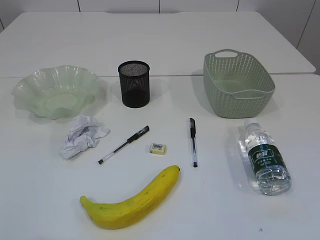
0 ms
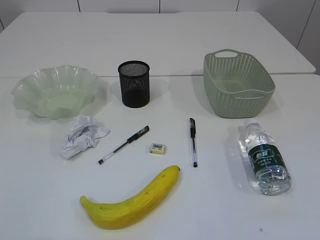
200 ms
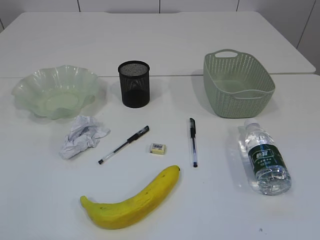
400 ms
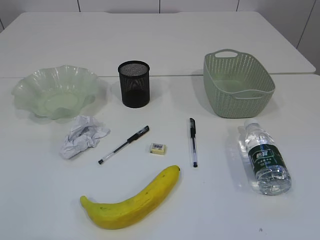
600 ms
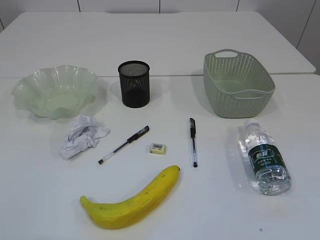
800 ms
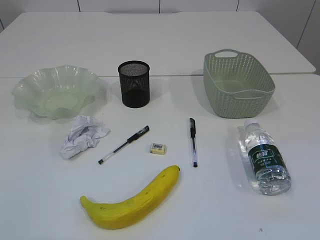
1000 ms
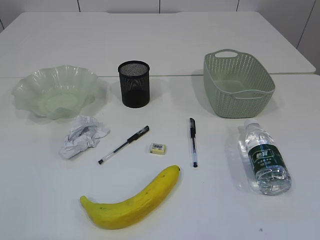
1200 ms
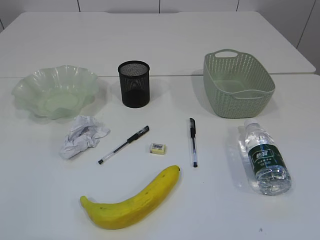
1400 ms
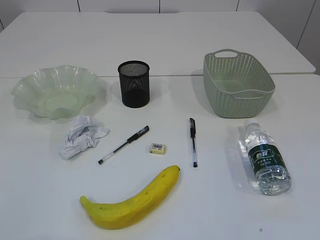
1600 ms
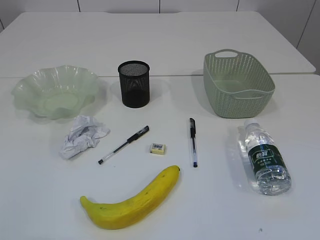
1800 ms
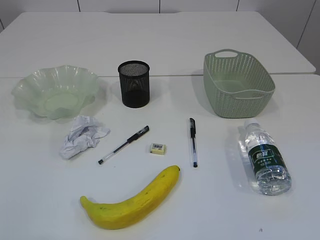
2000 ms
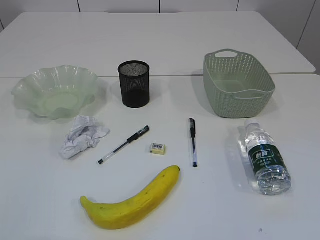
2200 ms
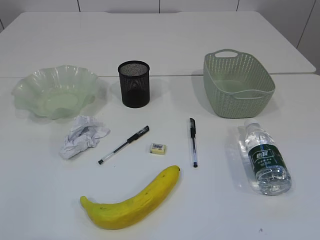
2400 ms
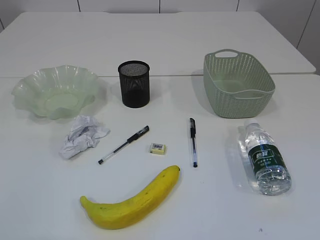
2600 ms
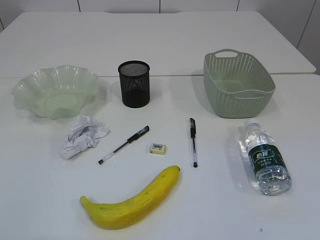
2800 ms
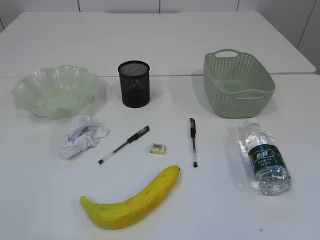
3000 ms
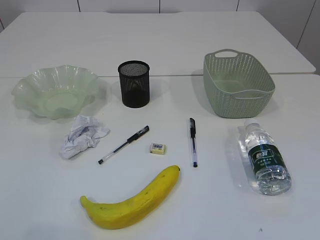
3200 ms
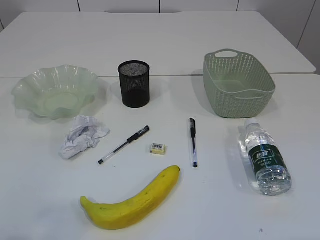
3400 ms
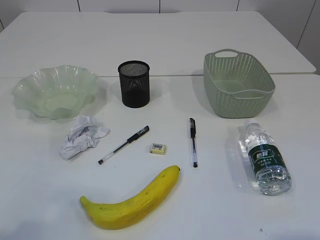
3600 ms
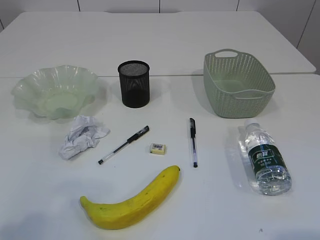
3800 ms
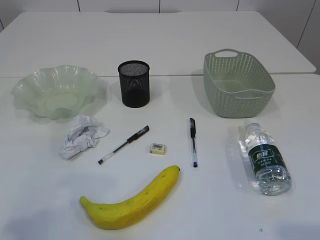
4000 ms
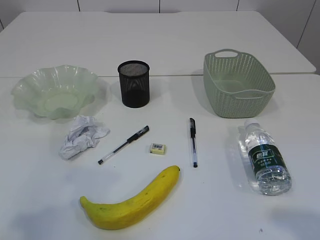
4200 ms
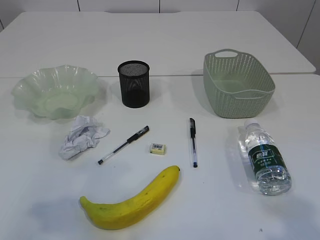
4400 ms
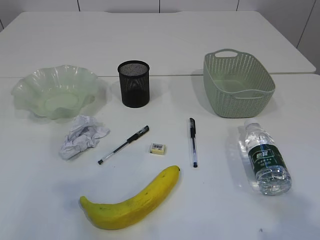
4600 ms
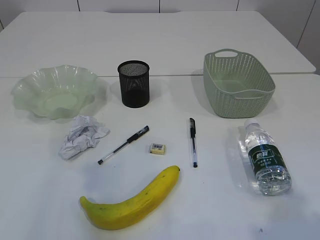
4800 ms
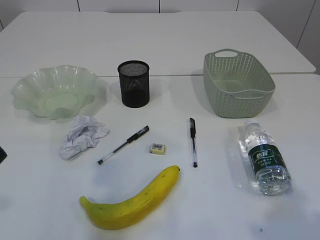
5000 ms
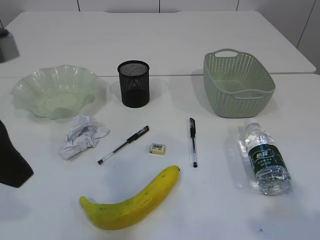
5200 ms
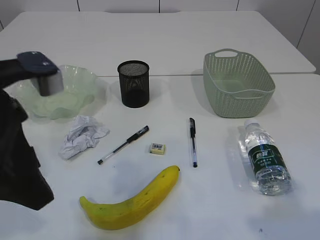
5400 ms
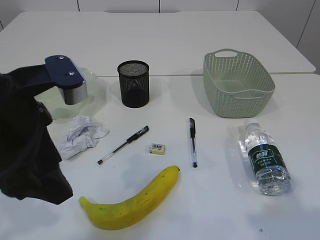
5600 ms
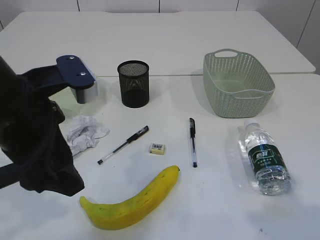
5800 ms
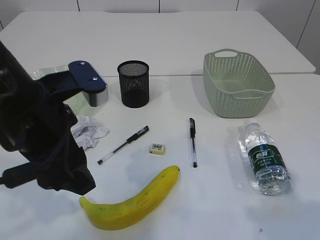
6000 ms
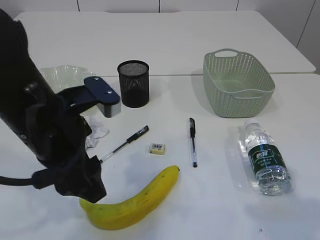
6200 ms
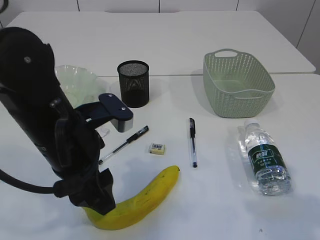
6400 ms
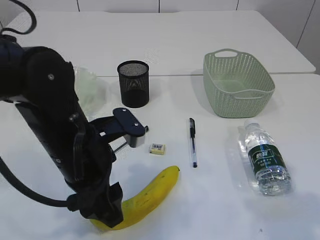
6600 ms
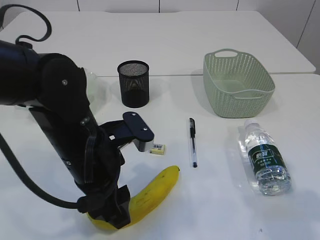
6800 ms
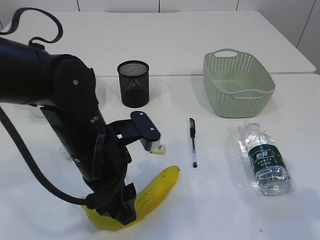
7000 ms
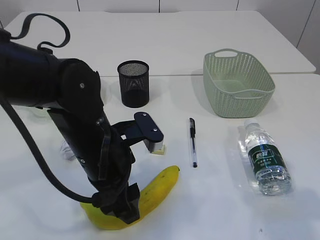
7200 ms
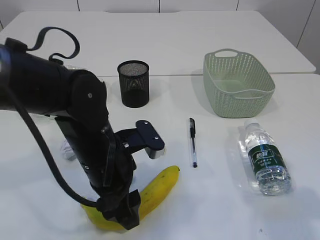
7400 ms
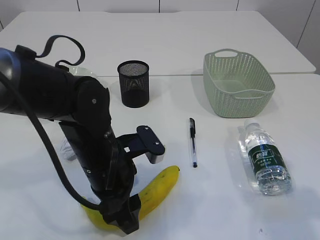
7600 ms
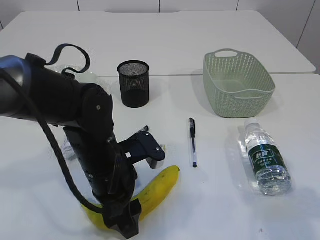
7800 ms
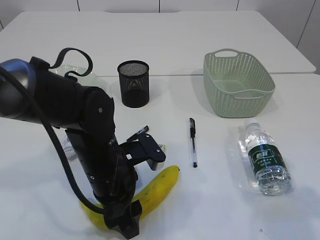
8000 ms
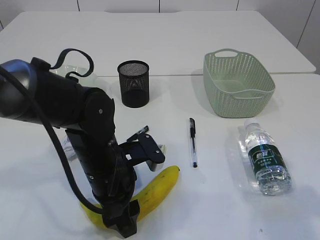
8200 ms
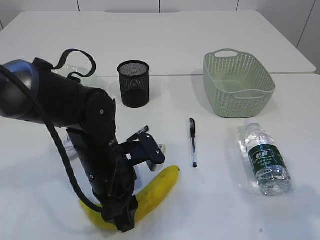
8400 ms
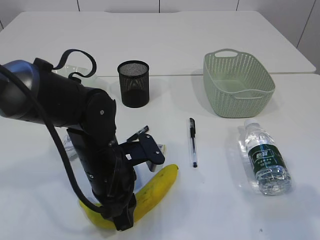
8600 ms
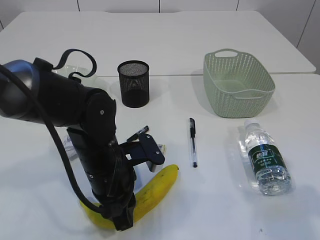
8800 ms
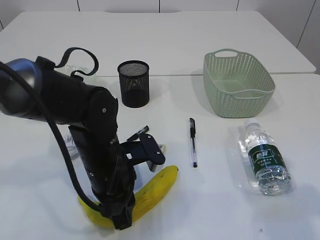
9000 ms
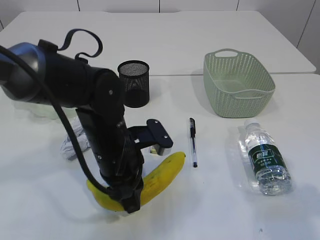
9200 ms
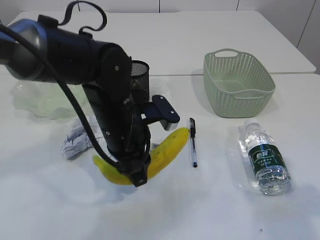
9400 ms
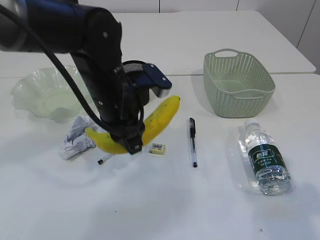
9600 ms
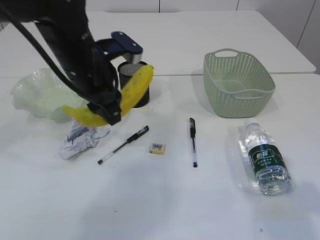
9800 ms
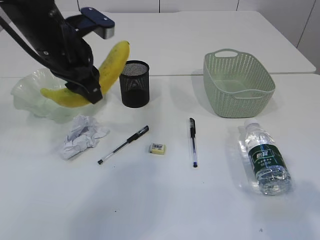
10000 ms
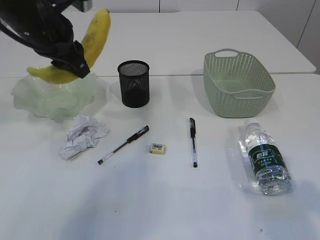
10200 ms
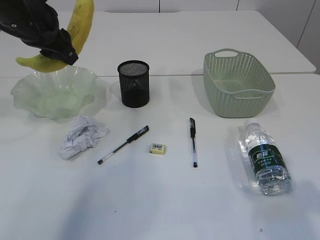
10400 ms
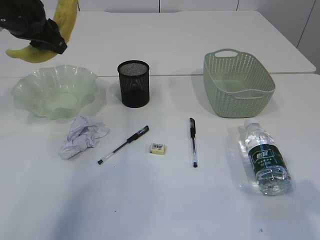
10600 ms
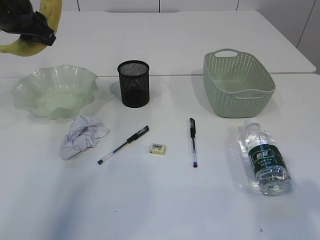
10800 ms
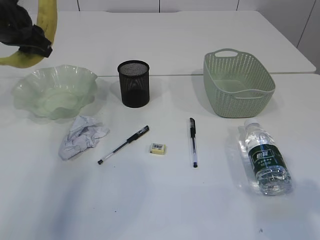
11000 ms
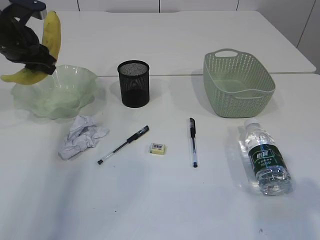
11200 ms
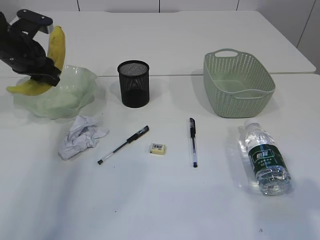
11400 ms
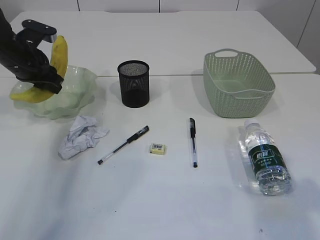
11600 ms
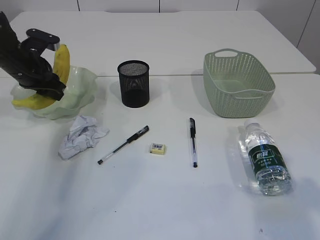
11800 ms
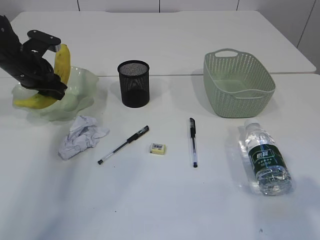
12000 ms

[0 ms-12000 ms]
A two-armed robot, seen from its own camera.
3000 ms to 4400 ms: The right gripper goes roughly 10 cm forward and upward. The left gripper is displaced forward by approximately 10 cm, and opens its fingers.
4400 ms to 6000 ms: The left gripper heads to the right and forward, covering some 20 cm, and opens up.
6000 ms to 7600 ms: The left gripper goes some 15 cm downward and to the right.
7600 ms to 9000 ms: The left gripper closes.
9000 ms to 10400 ms: The left gripper moves upward, to the left and forward, about 25 cm.
10400 ms to 12000 ms: The left gripper heads downward, forward and to the left, covering roughly 15 cm.

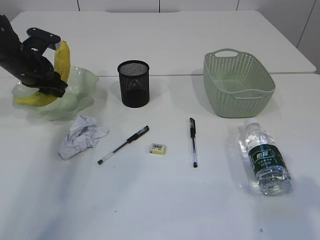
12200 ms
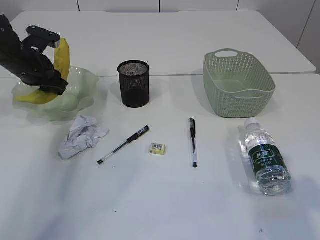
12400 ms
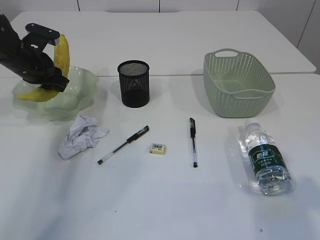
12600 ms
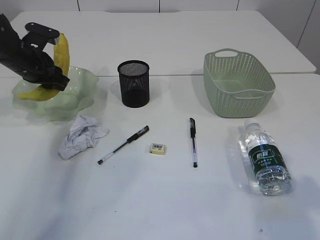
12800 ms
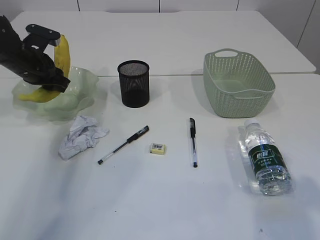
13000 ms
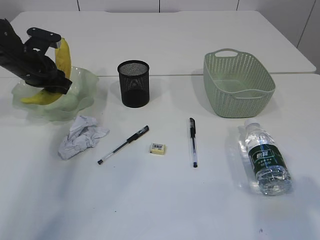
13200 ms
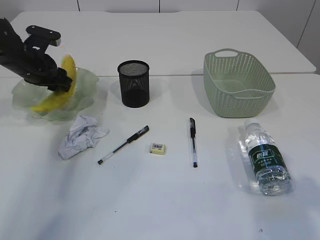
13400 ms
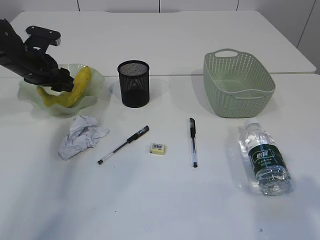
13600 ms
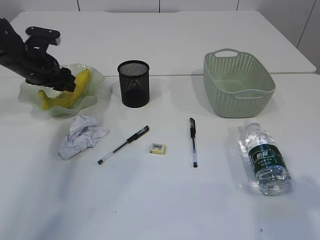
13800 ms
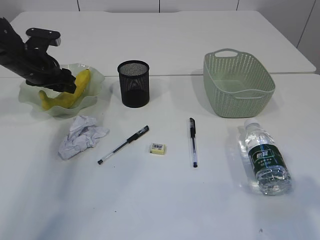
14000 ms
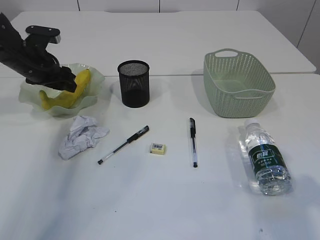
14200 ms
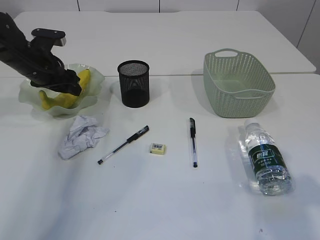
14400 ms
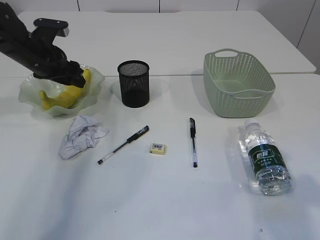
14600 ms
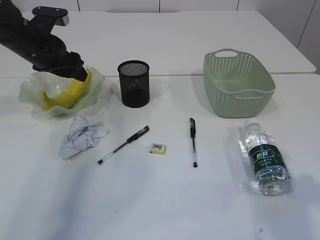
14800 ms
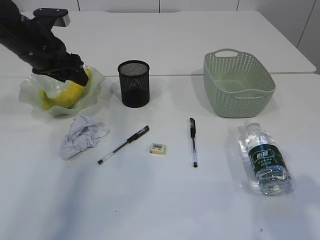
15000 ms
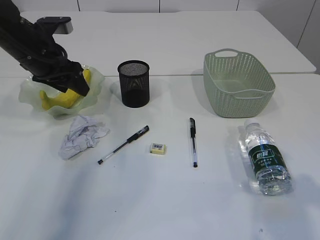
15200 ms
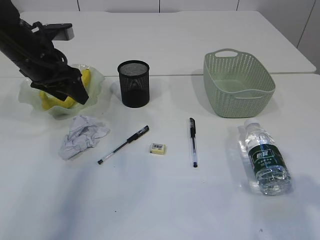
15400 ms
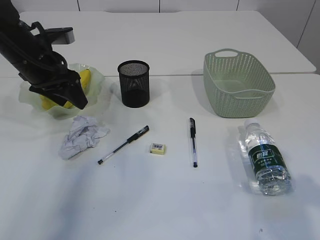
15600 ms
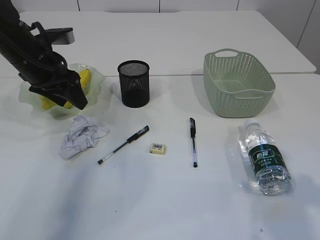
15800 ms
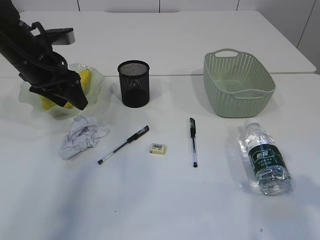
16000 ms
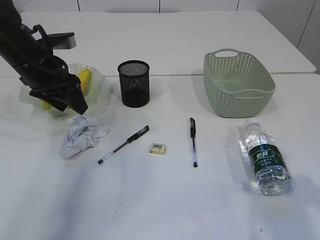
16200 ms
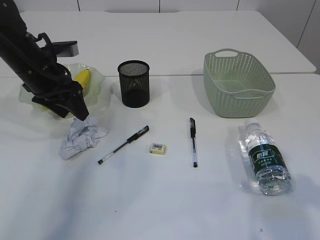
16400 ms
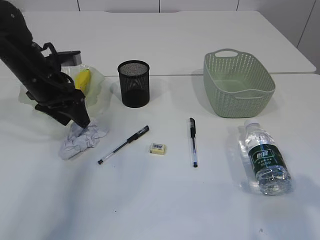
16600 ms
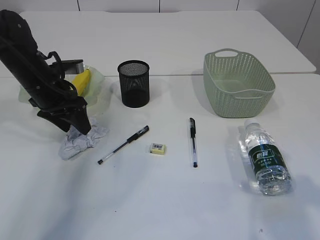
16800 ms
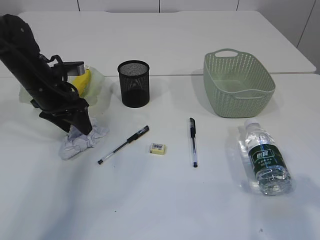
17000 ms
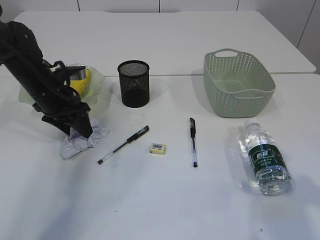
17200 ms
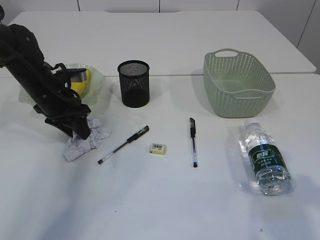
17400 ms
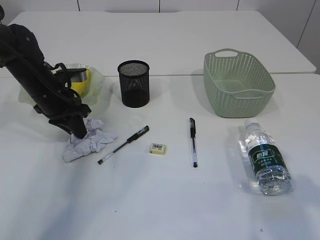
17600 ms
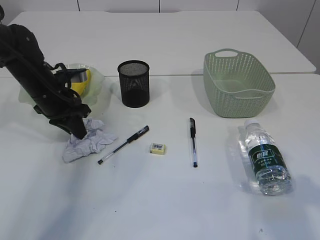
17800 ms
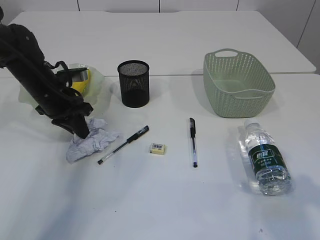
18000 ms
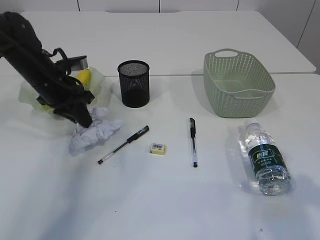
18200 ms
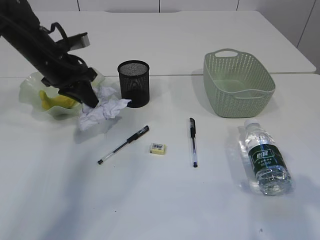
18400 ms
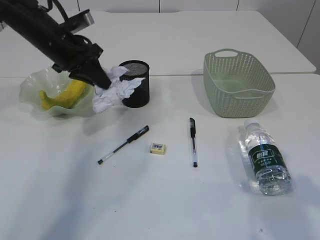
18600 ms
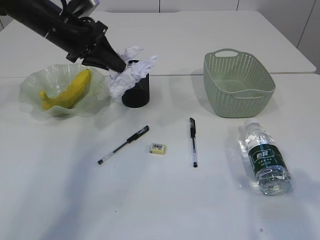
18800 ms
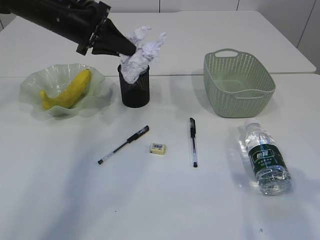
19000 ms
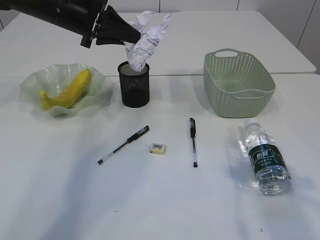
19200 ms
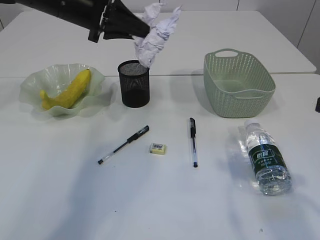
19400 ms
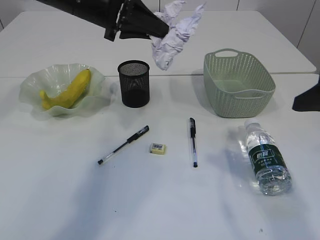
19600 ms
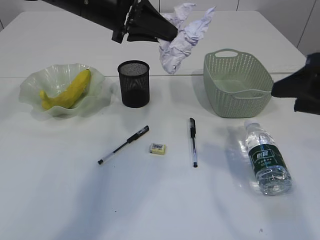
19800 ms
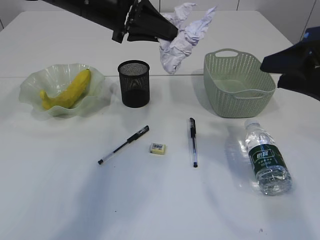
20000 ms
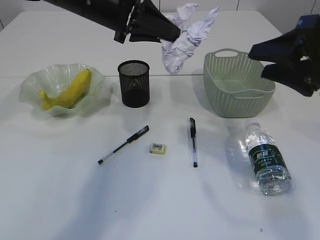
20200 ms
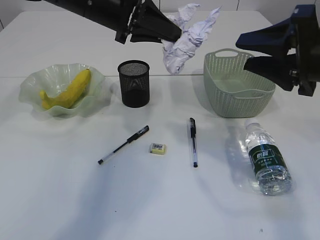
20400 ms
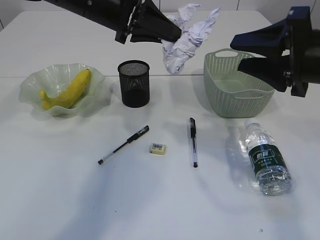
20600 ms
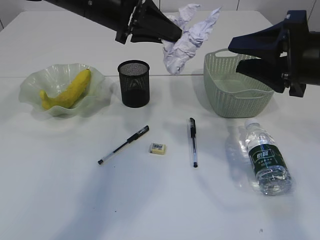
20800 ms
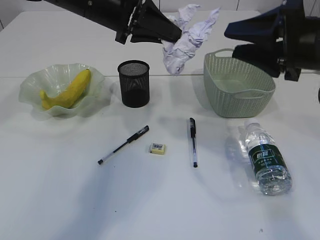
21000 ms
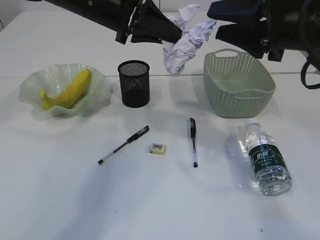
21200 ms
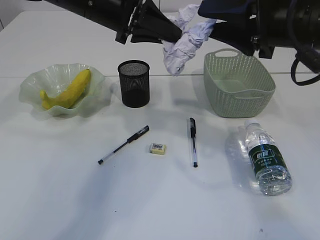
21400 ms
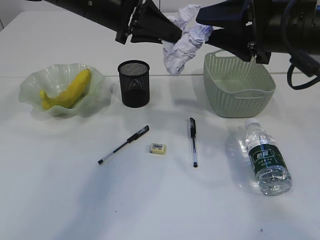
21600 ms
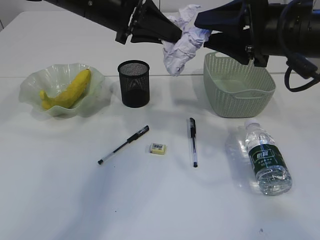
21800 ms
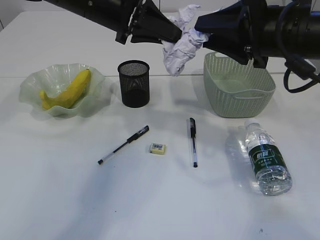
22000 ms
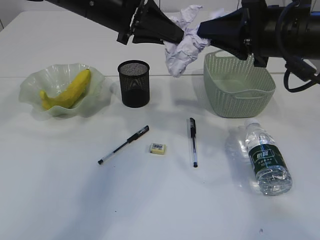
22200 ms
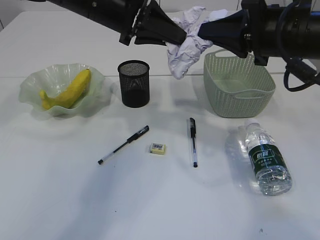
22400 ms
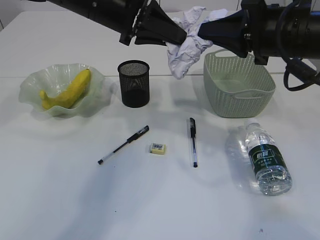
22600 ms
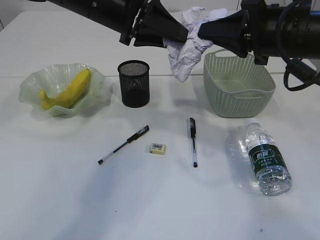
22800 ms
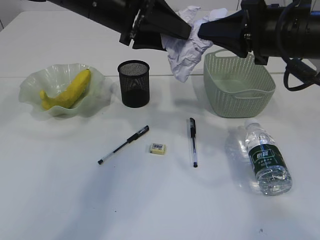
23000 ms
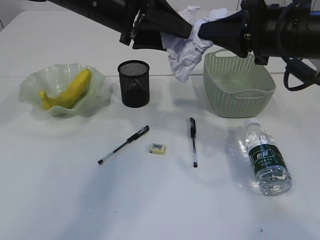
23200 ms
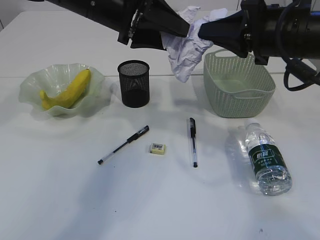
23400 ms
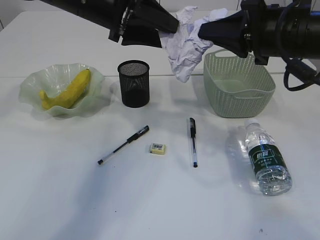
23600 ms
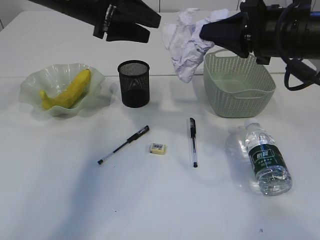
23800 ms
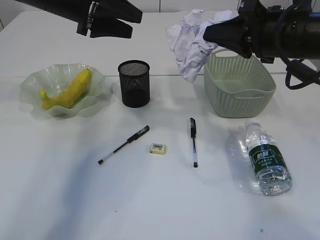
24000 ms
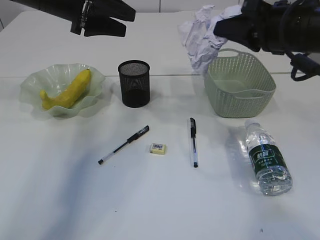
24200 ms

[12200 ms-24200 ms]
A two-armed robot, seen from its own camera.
Step, 13800 ms to 18400 ms: Pick up the waste paper.
Step, 18600 ms to 23800 ms: Hand over the waste paper.
12200 ms to 13800 ms: The left gripper opens.
13800 ms to 15200 ms: The left gripper is displaced upward by some 5 cm.
15200 ms to 16600 ms: The grippers move only a little.
16600 ms to 18200 ms: The left gripper closes.
18200 ms to 19800 ms: The left gripper travels upward and to the right by approximately 20 cm. Meanwhile the right gripper shifts about 5 cm forward.
19800 ms to 21200 ms: The right gripper goes about 10 cm forward and to the left.
21200 ms to 22600 ms: The right gripper closes its fingers.
22600 ms to 24200 ms: The left gripper shifts approximately 10 cm to the left, and opens.
